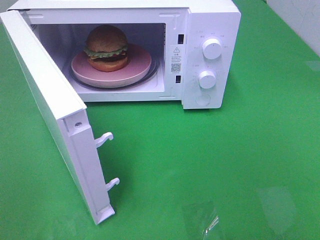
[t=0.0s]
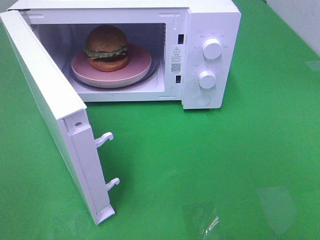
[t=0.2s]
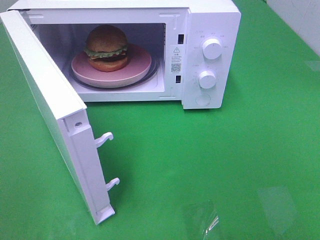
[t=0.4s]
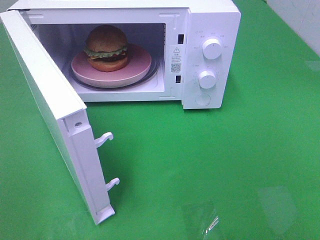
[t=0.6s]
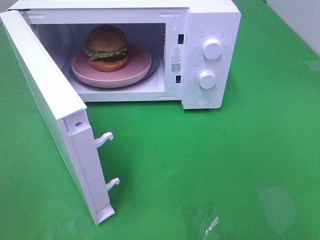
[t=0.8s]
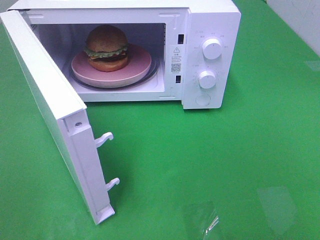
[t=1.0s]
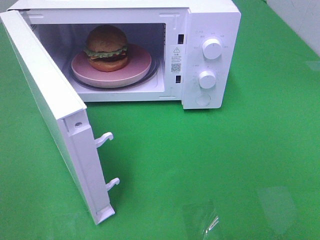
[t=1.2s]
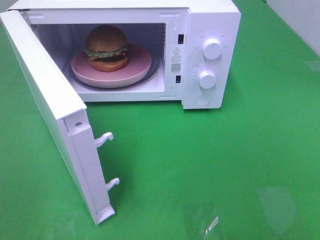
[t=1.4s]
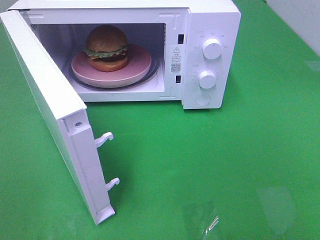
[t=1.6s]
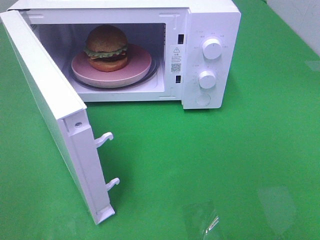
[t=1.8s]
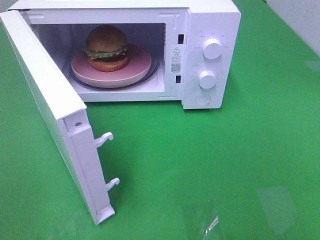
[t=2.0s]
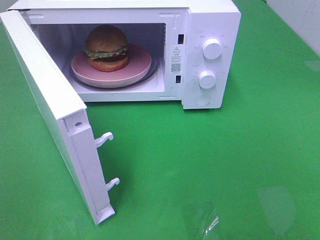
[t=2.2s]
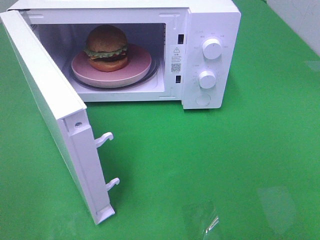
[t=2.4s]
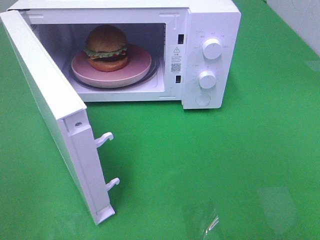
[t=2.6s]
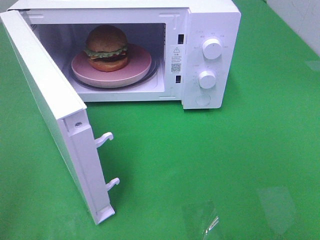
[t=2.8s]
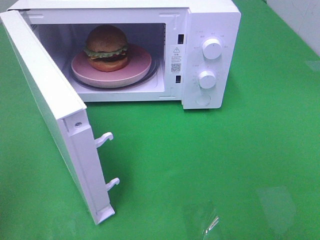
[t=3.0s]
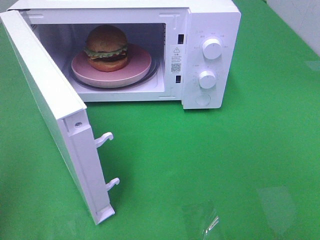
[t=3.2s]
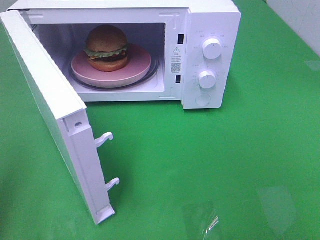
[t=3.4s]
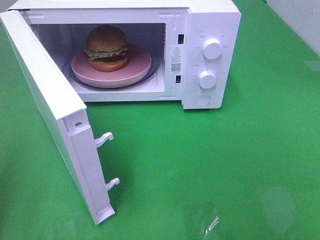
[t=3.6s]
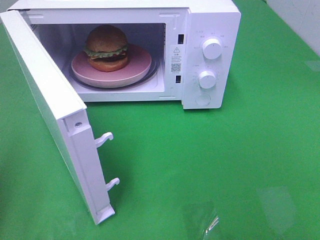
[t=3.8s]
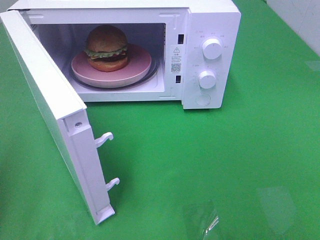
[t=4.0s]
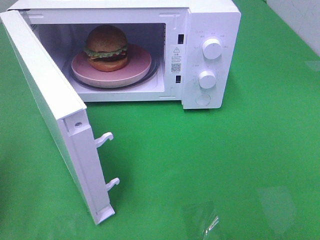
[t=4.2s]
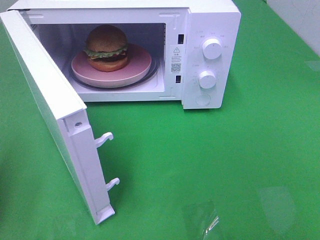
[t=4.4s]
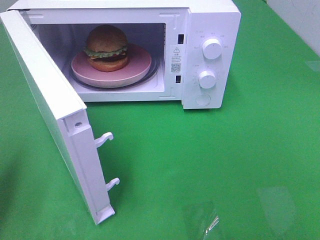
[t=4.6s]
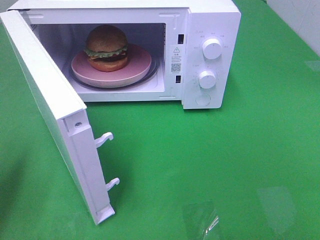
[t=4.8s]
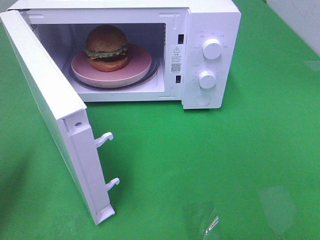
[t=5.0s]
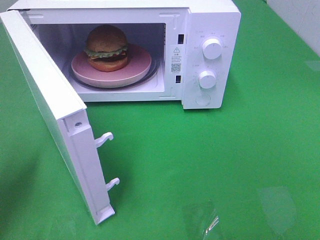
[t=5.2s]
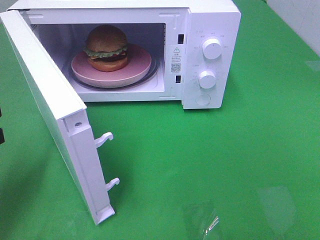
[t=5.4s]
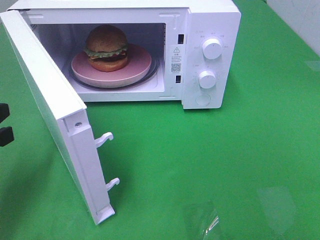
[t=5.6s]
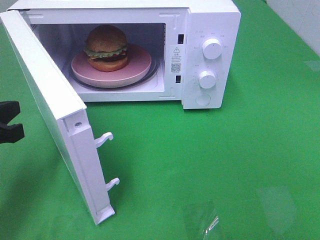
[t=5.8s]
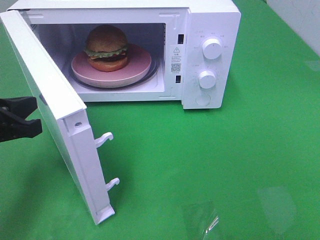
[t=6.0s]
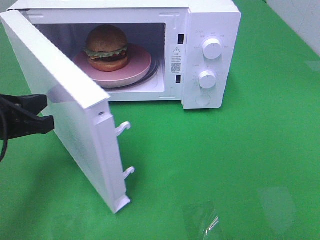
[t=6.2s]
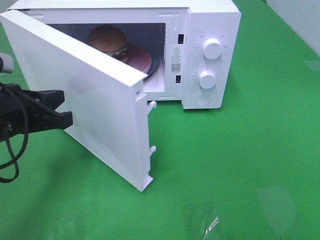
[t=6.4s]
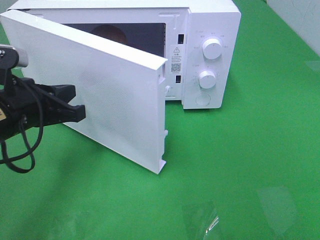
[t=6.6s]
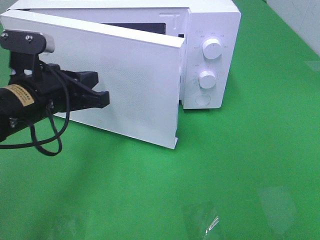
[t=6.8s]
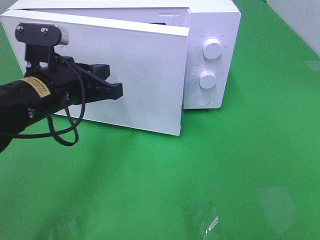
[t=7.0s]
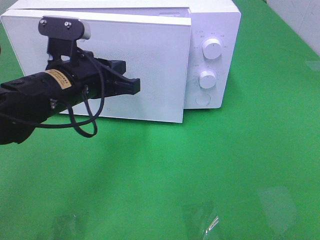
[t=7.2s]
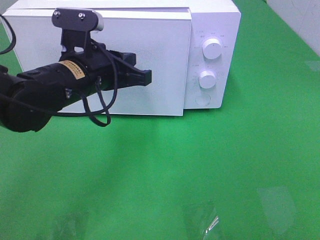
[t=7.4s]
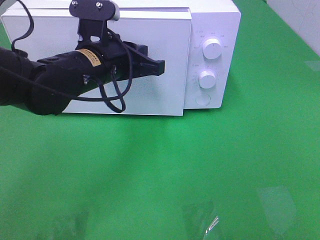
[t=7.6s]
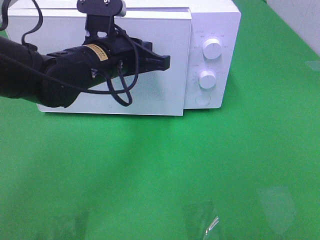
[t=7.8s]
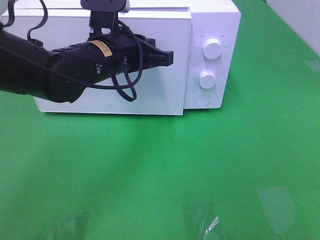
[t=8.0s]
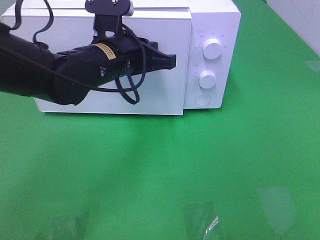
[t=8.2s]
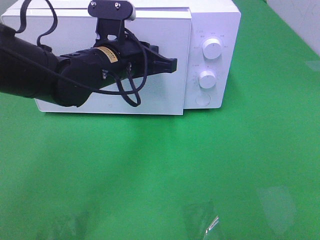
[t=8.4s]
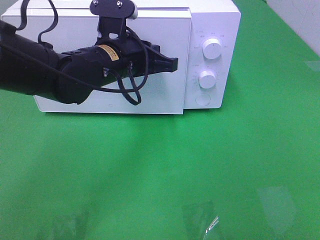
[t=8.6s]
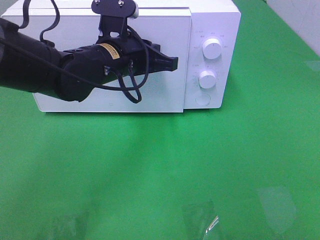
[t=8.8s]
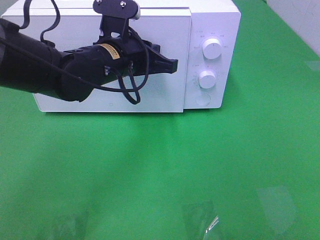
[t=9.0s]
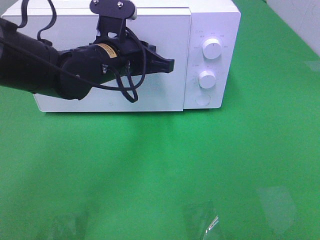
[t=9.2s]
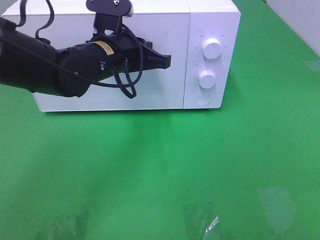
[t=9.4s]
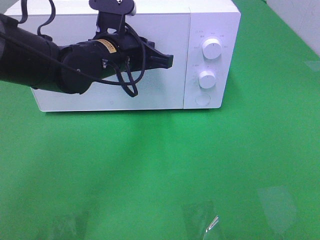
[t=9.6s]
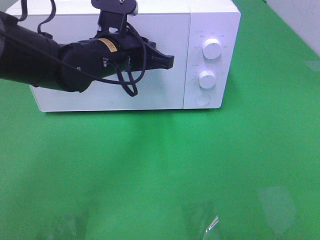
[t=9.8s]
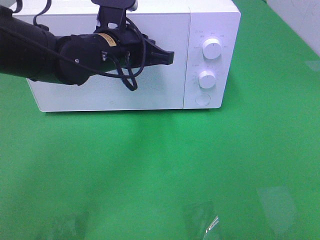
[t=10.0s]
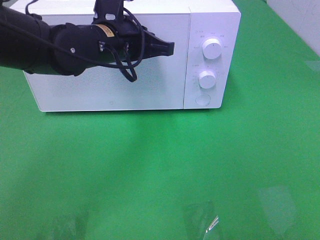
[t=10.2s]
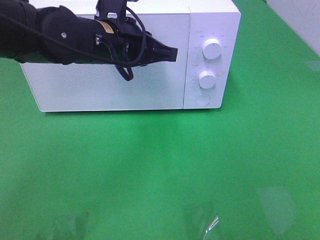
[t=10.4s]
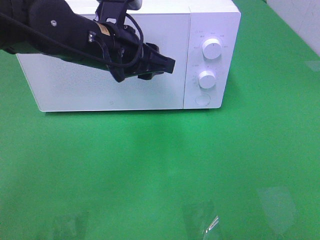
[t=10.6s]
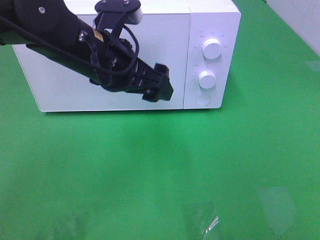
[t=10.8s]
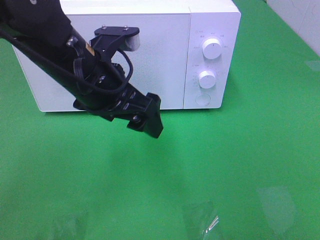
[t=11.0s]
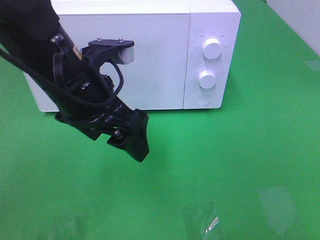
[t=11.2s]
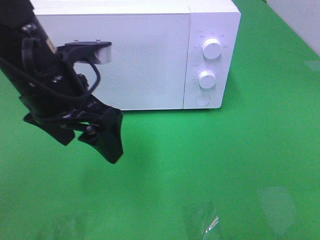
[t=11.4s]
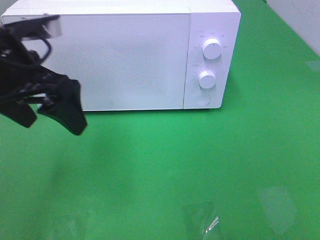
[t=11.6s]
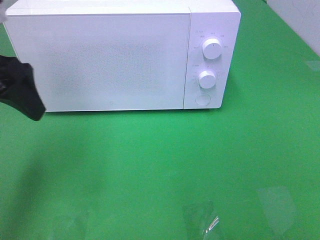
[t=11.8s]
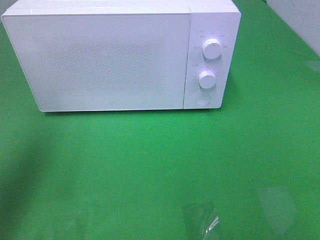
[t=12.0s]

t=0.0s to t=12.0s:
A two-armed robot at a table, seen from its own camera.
Task of the whole recording: Heat the burger.
Step, t=0.0s to t=10.4s: Left hand: close the microwave door.
t=0.0s to t=1.6s: Neither gripper changes place.
t=4.4s to t=6.0s: The left gripper shifts some 10 cm to the right and forward.
t=6.0s to t=7.6s: The left gripper shifts roughly 20 cm to the right and forward.
t=7.6s to t=10.4s: The grippers stay close to where they were, moving slightly.
t=10.4s to t=12.0s: The left gripper is displaced to the left by some 25 cm, and opens up.

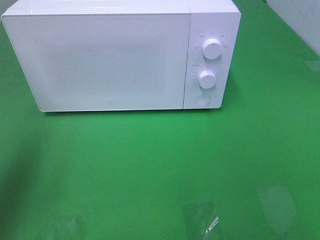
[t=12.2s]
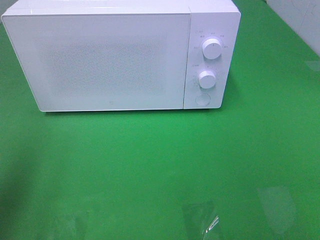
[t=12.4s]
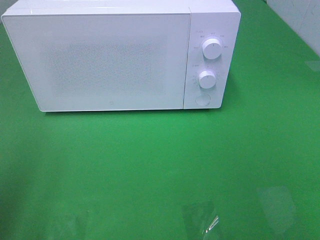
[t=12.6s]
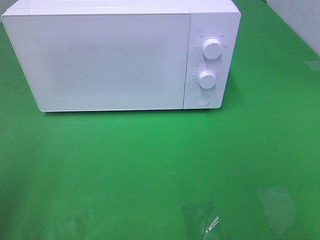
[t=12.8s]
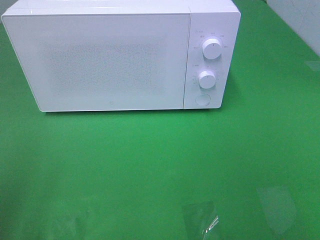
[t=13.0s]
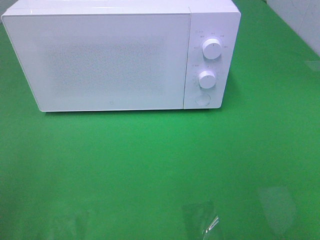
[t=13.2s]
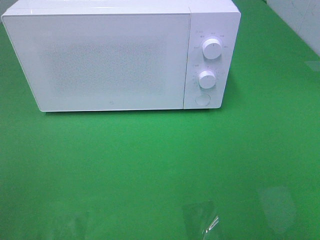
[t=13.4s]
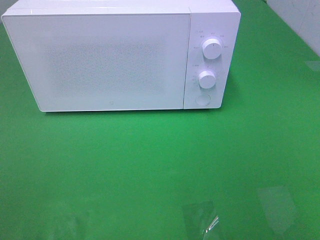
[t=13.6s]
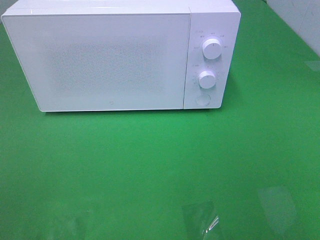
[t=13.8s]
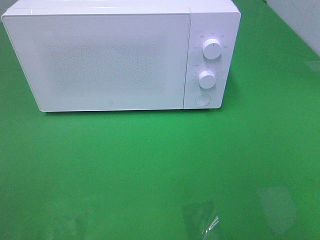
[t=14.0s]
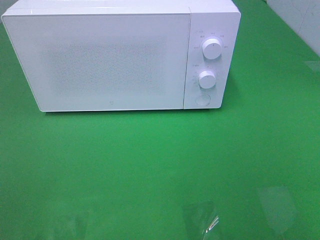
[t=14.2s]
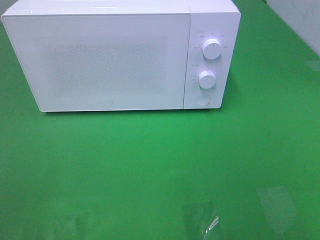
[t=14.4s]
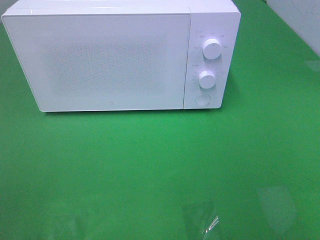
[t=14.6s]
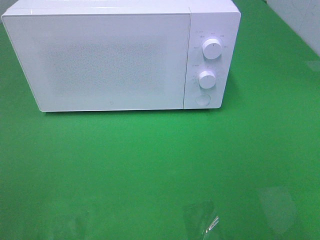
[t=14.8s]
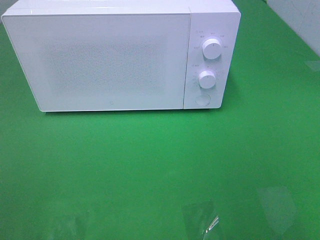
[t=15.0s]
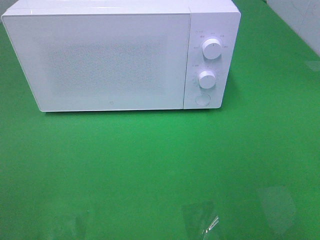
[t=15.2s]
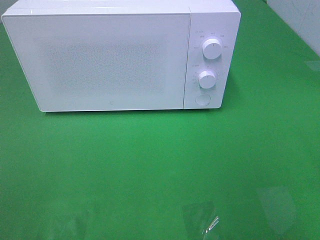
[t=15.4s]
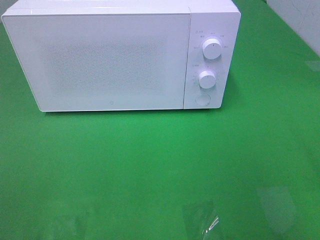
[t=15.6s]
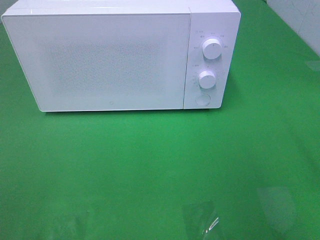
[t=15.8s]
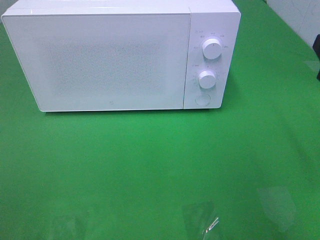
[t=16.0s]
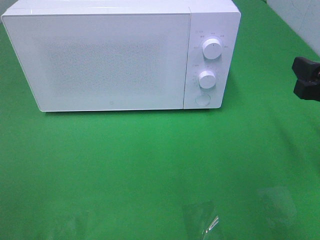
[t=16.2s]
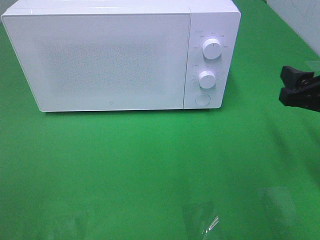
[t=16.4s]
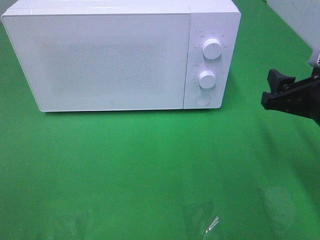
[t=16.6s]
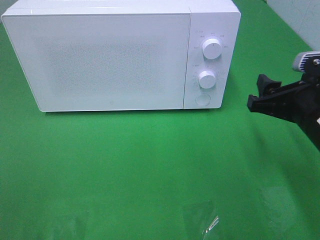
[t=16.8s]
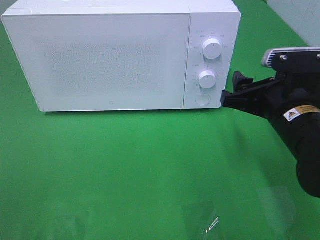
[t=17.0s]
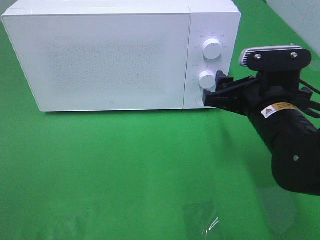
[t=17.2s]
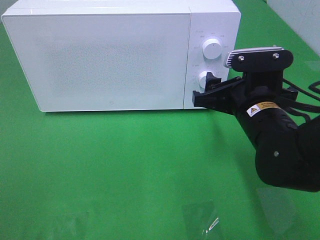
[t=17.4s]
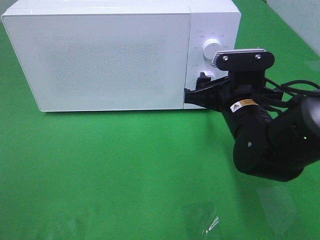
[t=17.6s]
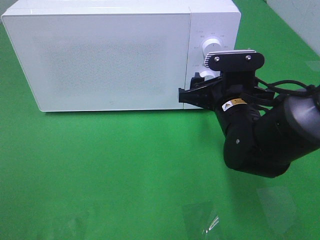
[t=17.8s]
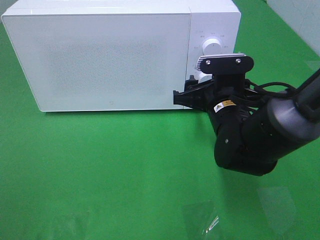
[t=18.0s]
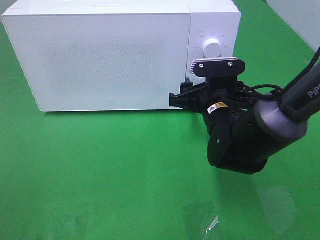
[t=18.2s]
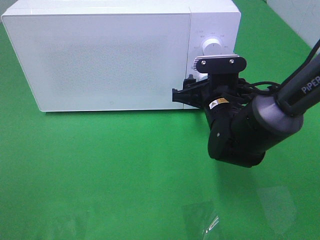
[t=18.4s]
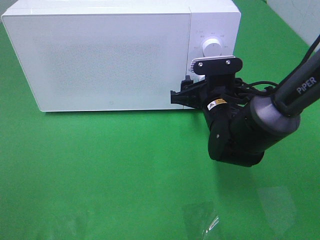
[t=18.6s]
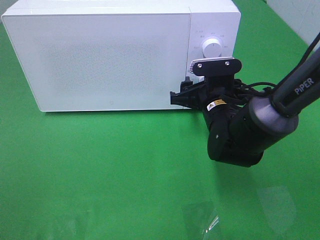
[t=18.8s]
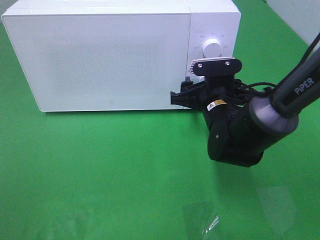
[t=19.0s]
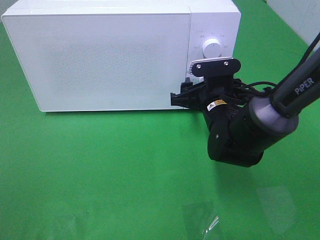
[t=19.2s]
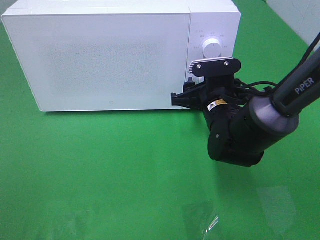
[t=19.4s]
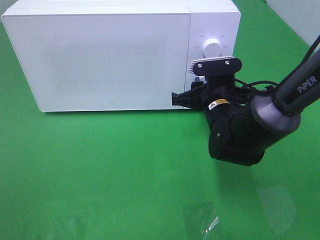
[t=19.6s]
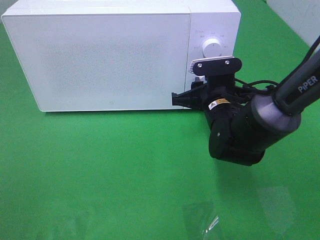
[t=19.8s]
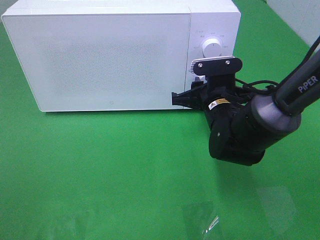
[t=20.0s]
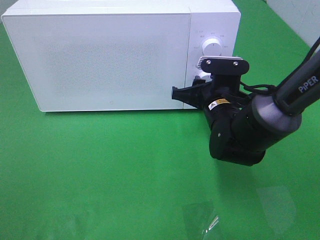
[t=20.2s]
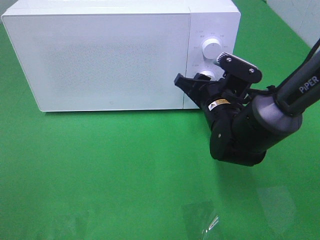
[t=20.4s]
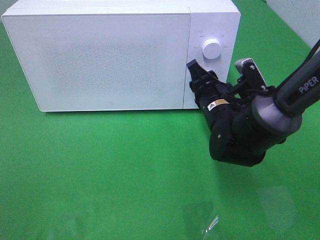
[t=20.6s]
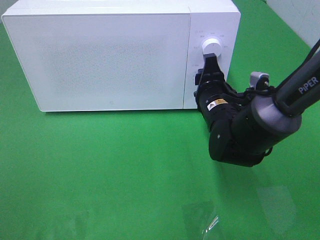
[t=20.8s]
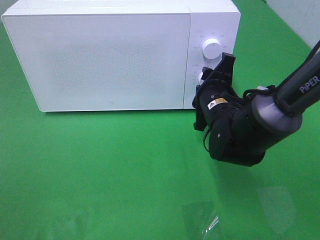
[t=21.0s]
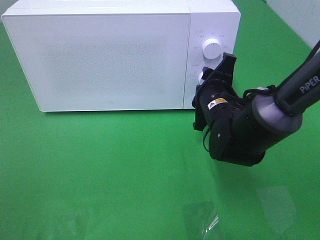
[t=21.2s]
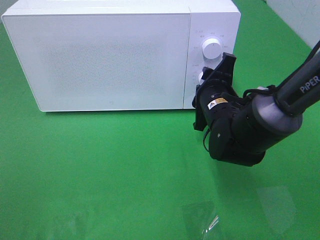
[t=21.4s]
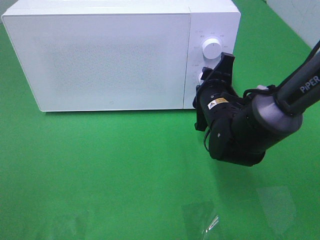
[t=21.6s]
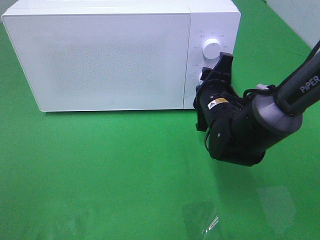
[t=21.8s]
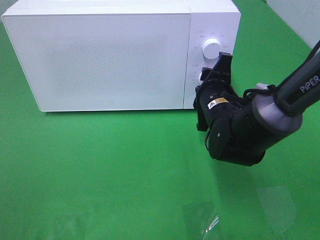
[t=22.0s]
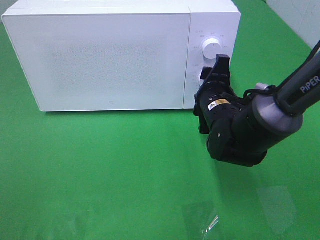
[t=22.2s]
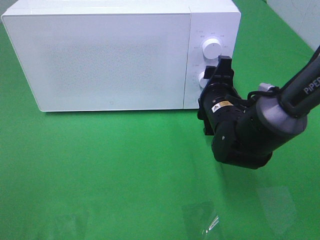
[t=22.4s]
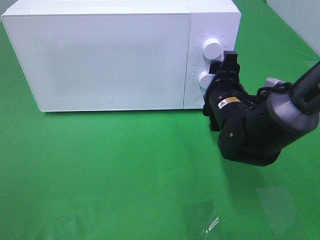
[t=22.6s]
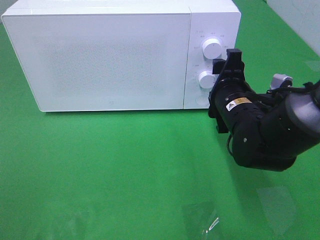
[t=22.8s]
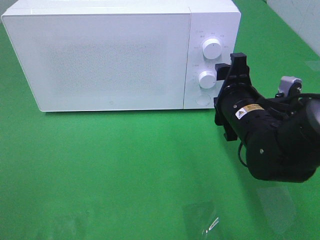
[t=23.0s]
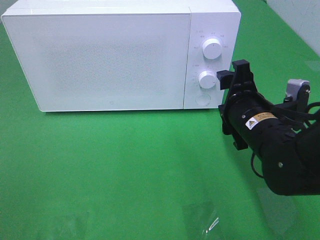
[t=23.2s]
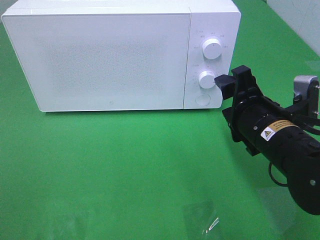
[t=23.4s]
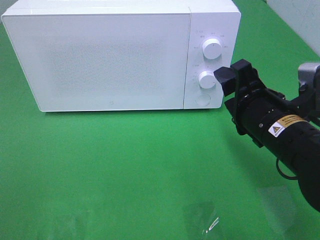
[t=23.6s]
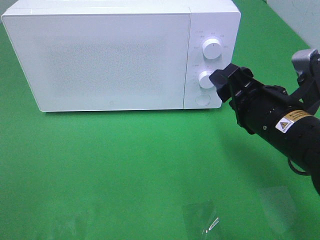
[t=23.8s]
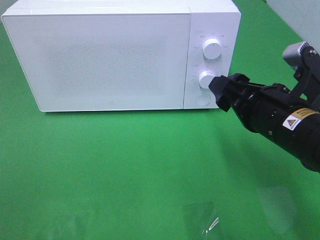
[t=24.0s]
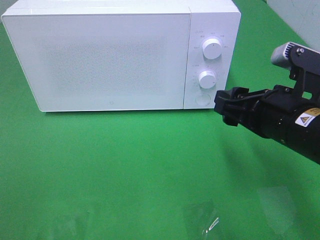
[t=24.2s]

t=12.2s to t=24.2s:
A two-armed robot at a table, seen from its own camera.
Task of the whole recording: Heat the burger.
Step, t=12.2s to t=22.2s: Right hand: twist timer button.
t=12.2s to t=13.8s: The left gripper is displaced backward by roughly 20 cm.
t=15.2s to t=16.6s: The right gripper shifts some 20 cm forward and downward.
t=16.6s to t=18.2s: The right gripper moves to the left, forward and downward, roughly 15 cm.
t=18.2s to t=19.8s: The right gripper closes.
t=21.2s to t=22.6s: The grippers move only a little.
t=22.6s to t=24.2s: The right gripper shifts approximately 15 cm backward and upward.
